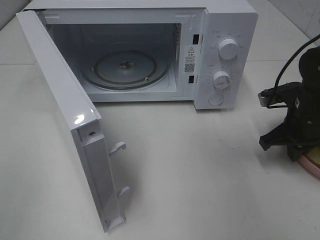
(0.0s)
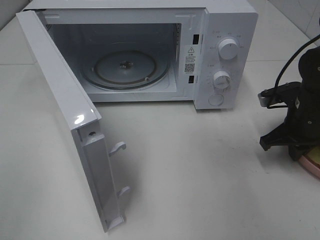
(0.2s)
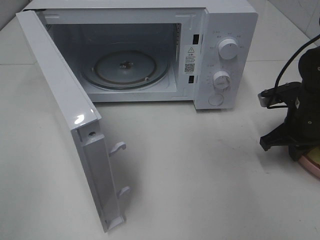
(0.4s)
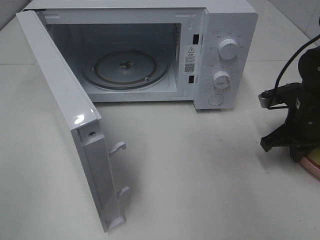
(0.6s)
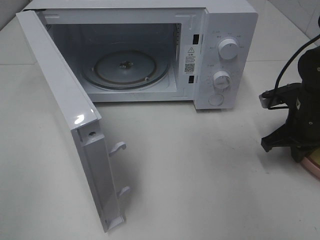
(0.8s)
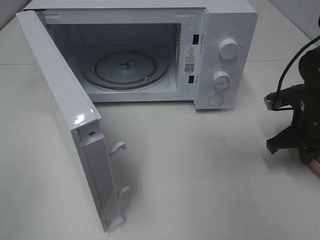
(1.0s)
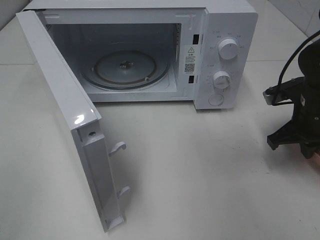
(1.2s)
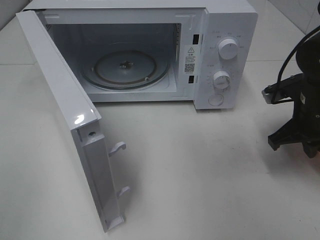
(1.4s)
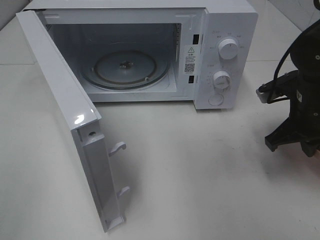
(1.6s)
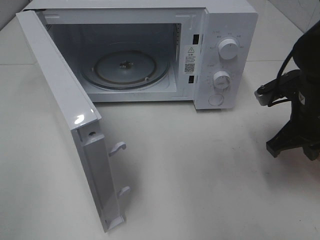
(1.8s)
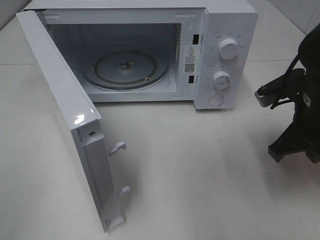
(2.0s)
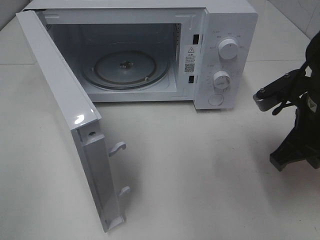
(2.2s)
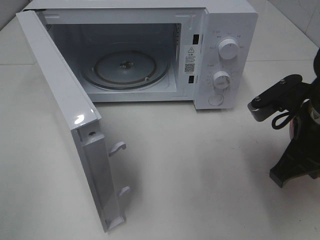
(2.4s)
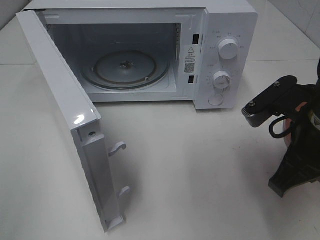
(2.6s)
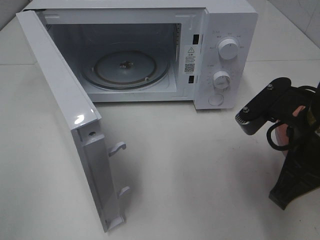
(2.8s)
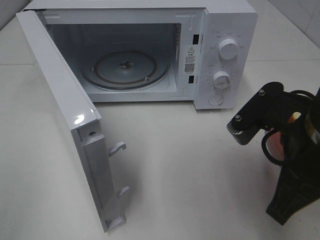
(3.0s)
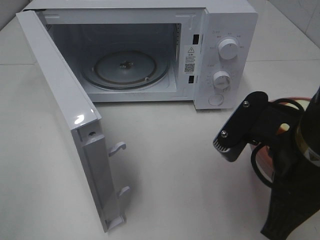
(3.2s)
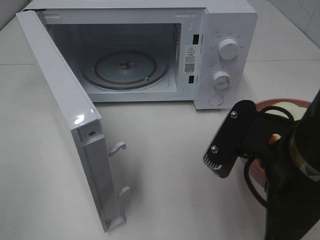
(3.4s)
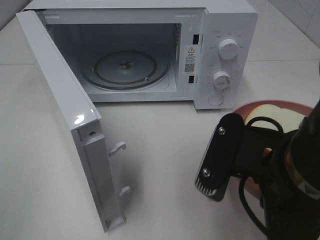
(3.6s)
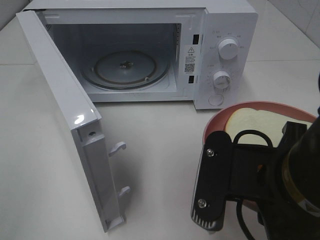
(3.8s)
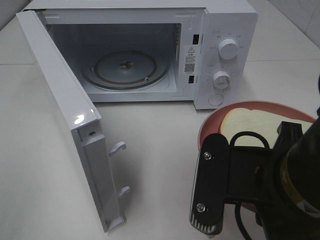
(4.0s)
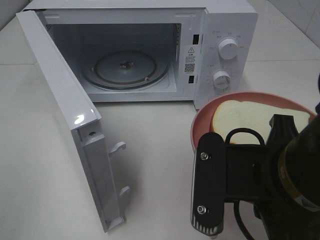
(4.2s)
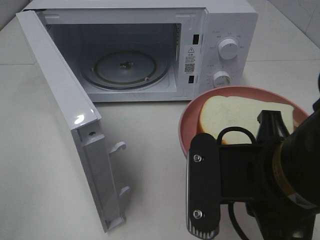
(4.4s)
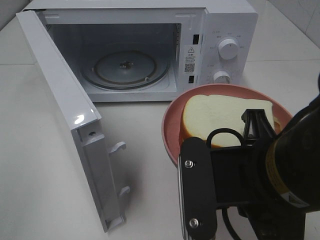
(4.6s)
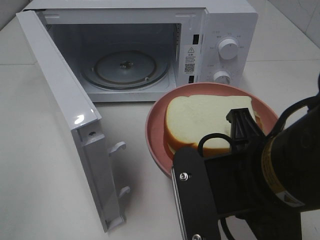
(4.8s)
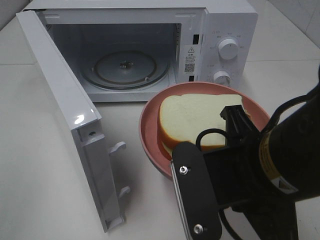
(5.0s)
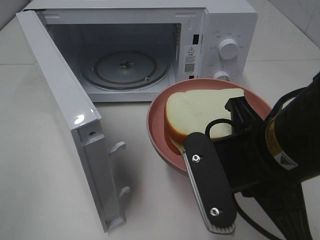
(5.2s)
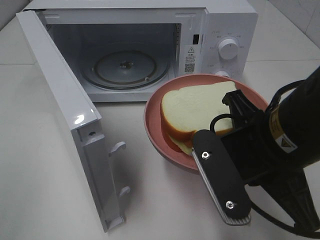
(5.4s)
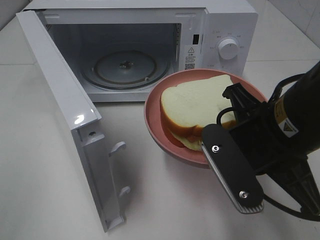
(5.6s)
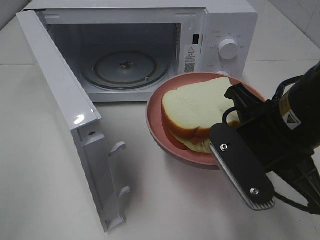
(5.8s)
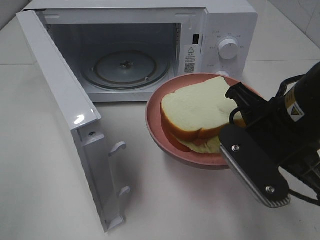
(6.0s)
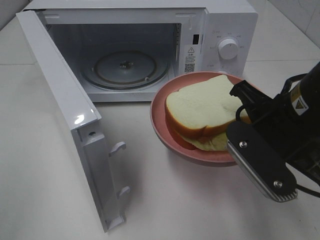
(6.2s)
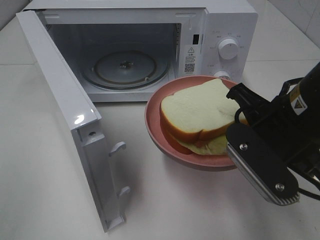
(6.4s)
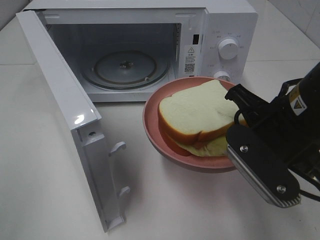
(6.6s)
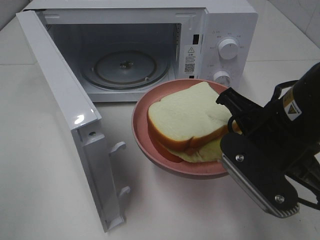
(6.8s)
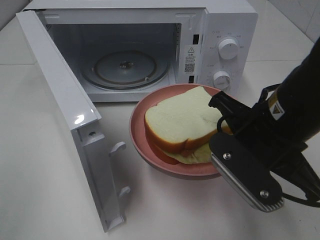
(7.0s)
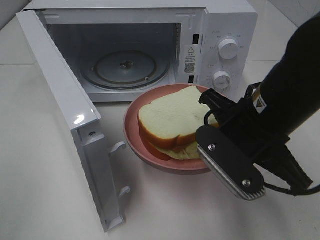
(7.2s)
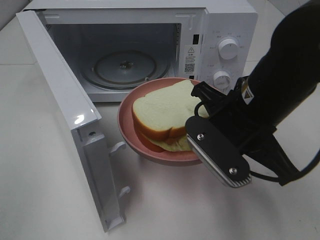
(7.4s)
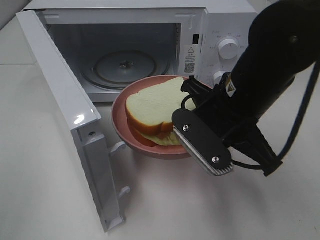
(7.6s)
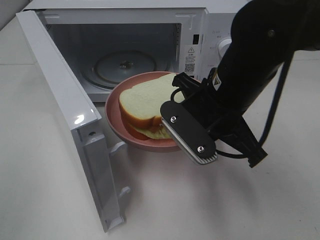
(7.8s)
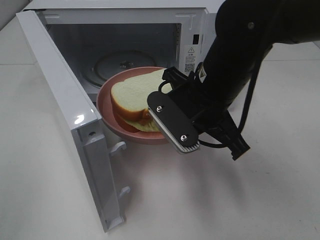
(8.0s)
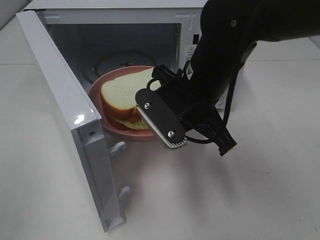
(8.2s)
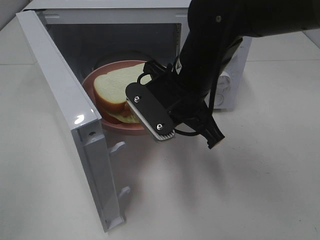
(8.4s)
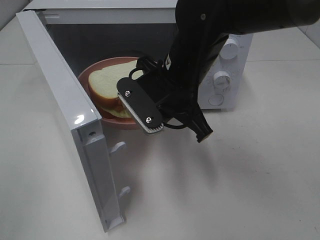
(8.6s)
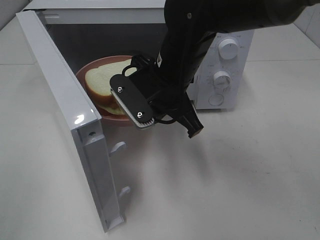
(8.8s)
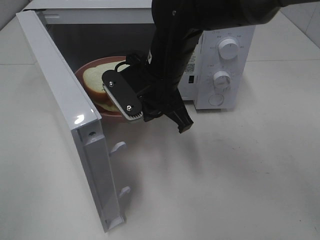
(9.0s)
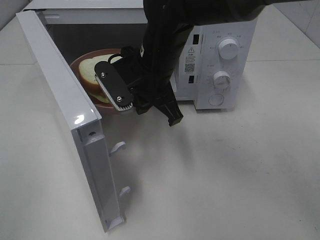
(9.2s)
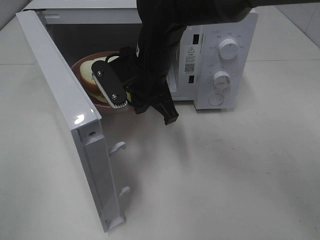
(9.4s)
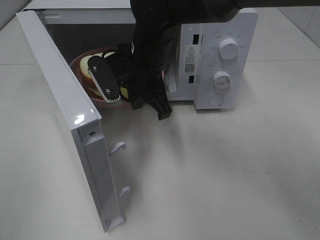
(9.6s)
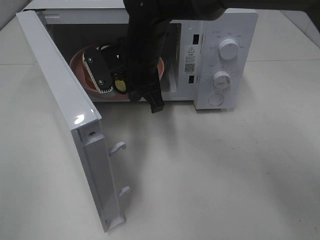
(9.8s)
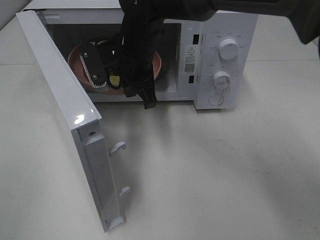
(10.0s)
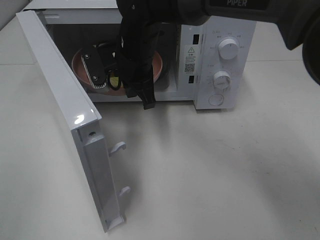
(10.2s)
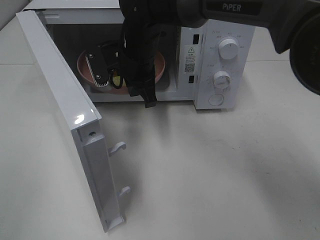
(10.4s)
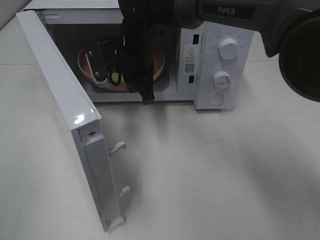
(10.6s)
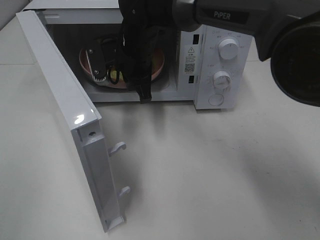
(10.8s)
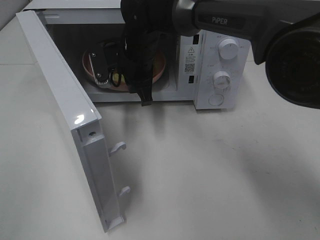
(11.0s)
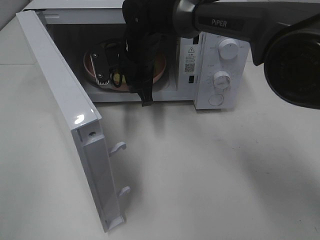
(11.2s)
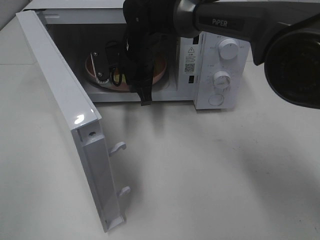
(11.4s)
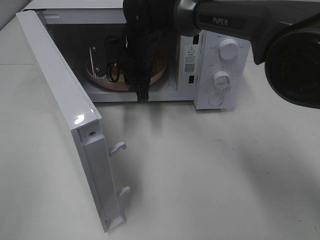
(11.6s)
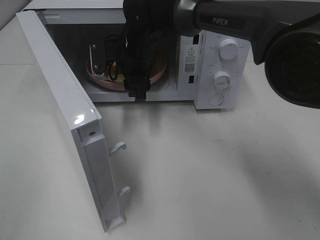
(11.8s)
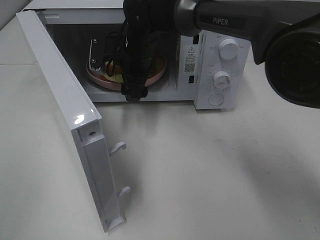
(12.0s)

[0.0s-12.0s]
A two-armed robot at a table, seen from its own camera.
Task of the whole recording: Heat Sandwich.
0.0s to 1.6s: The right gripper shifts by roughly 5 cm.
1.6s to 3.0s: The right gripper shifts some 15 cm backward, to the left and upward.
3.0s to 4.4s: The right gripper moves to the left, about 5 cm.
4.4s to 6.0s: The right gripper moves forward, roughly 10 cm.
6.0s to 7.6s: The right gripper changes place by some 5 cm.
7.6s to 9.0s: The right gripper shifts approximately 10 cm to the left and forward.
9.0s to 10.4s: The right gripper moves forward, about 10 cm.
10.4s to 12.0s: The right gripper opens up.

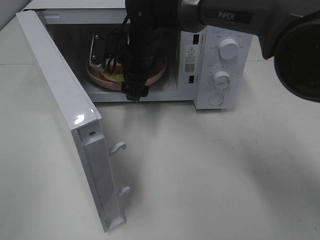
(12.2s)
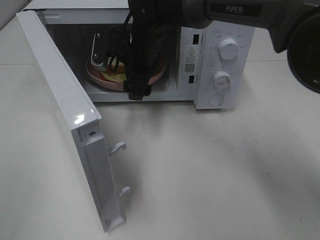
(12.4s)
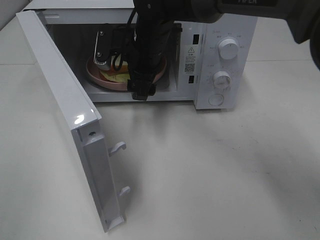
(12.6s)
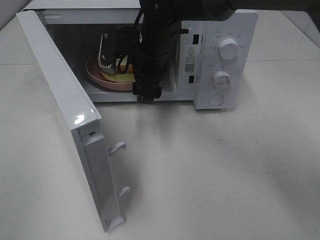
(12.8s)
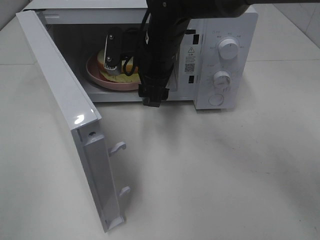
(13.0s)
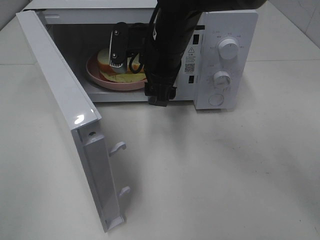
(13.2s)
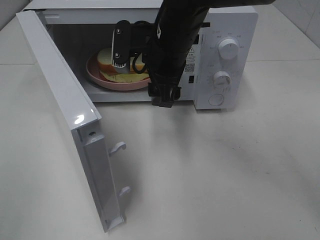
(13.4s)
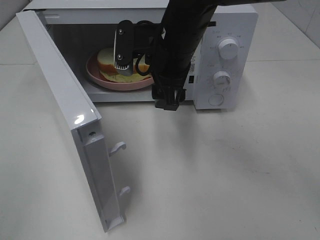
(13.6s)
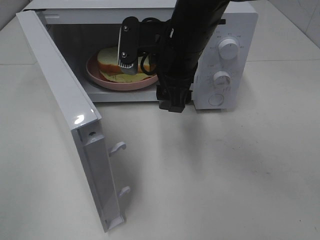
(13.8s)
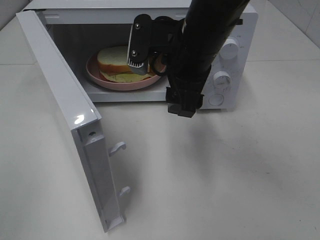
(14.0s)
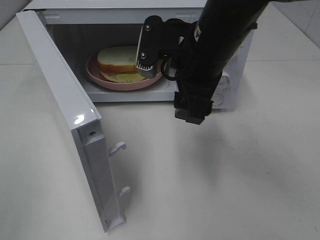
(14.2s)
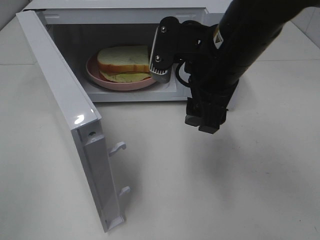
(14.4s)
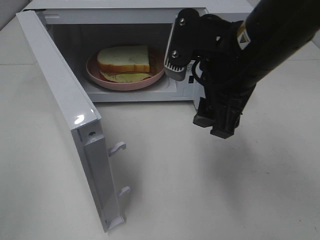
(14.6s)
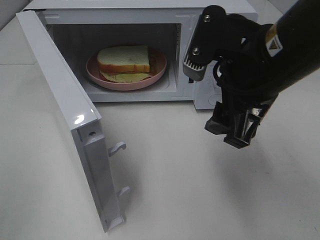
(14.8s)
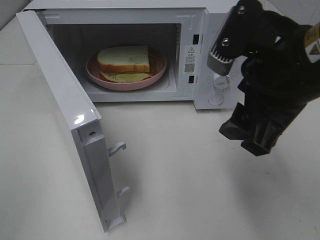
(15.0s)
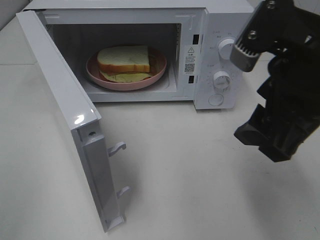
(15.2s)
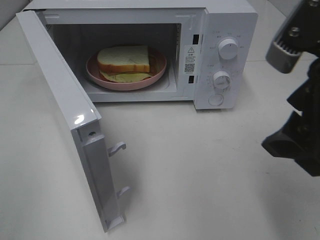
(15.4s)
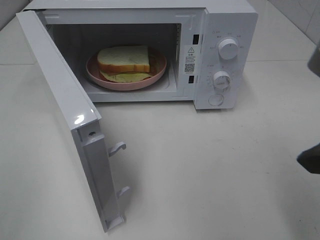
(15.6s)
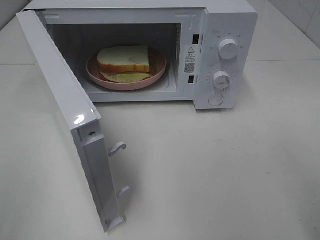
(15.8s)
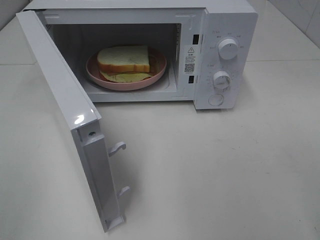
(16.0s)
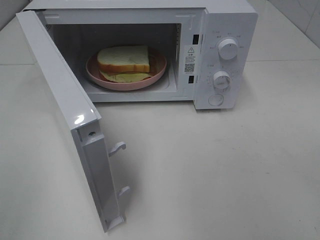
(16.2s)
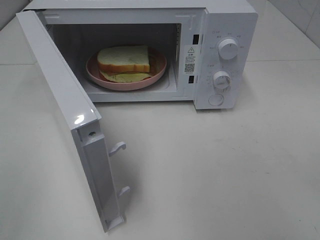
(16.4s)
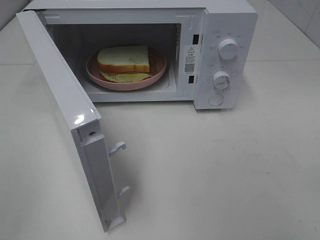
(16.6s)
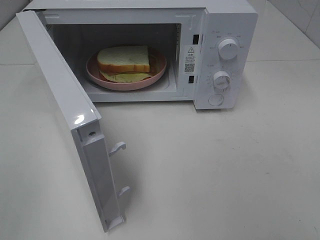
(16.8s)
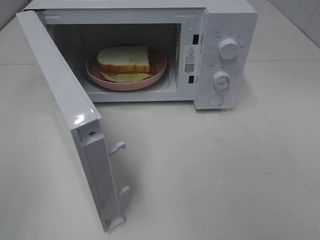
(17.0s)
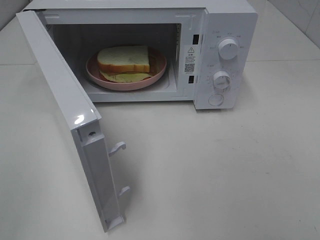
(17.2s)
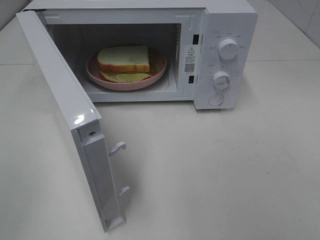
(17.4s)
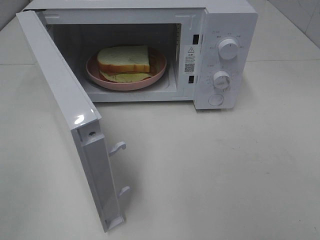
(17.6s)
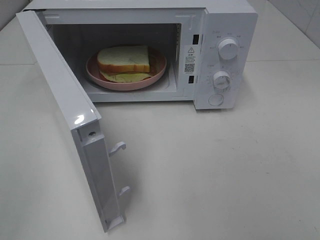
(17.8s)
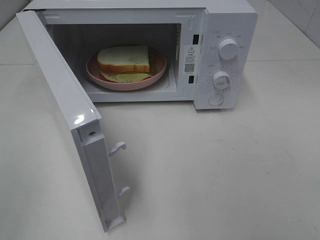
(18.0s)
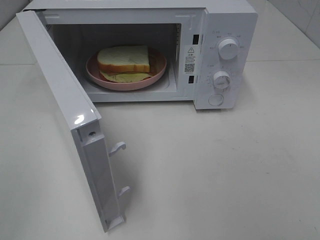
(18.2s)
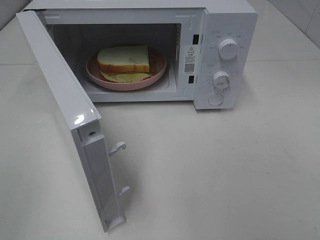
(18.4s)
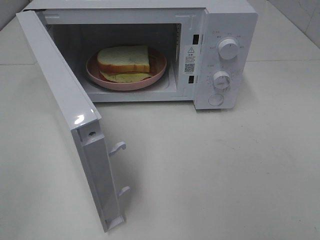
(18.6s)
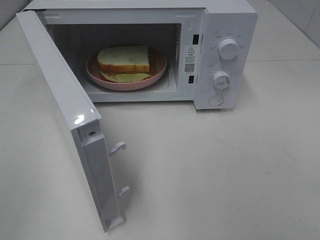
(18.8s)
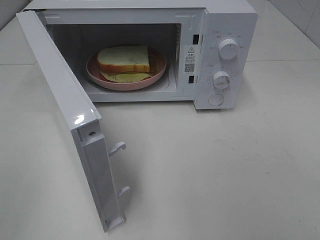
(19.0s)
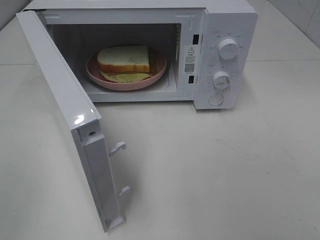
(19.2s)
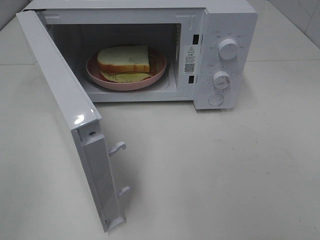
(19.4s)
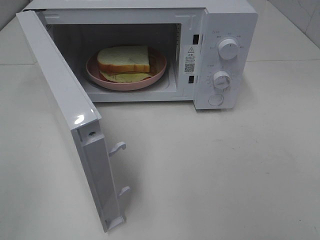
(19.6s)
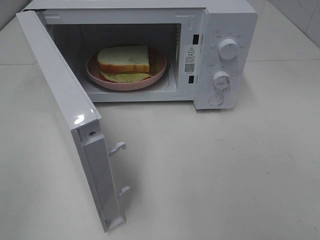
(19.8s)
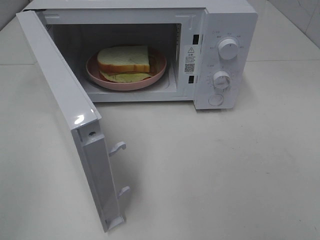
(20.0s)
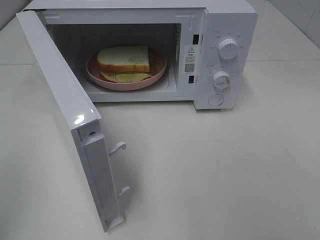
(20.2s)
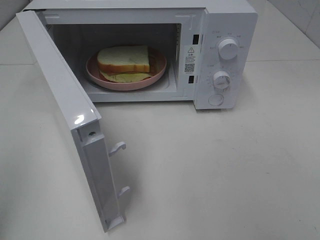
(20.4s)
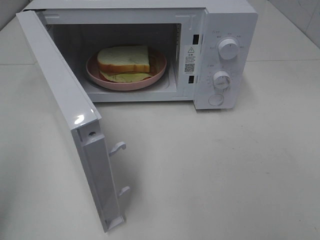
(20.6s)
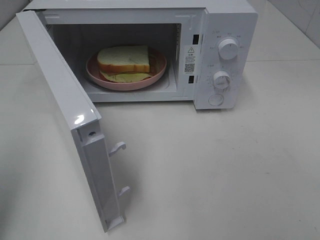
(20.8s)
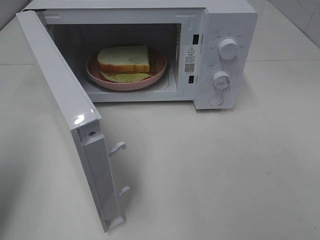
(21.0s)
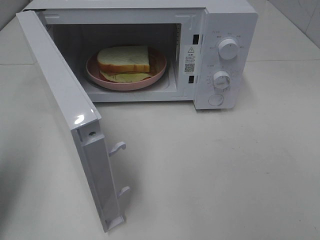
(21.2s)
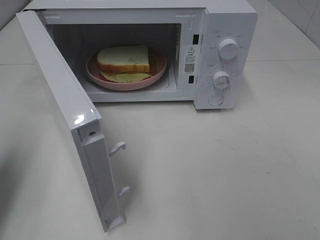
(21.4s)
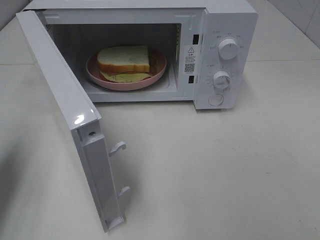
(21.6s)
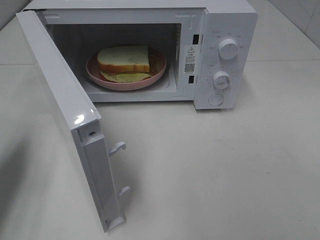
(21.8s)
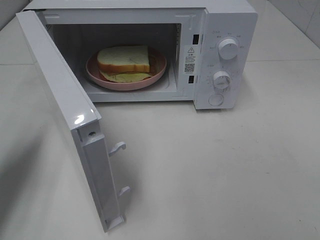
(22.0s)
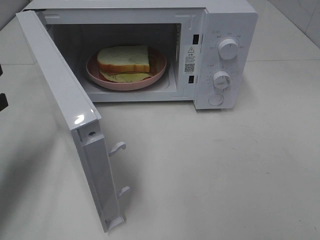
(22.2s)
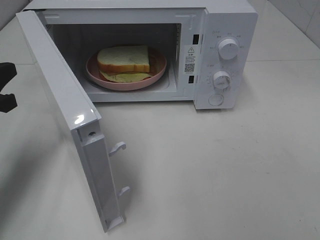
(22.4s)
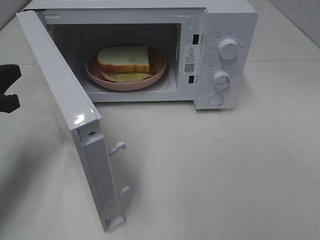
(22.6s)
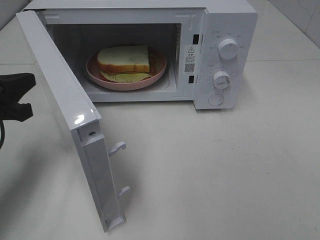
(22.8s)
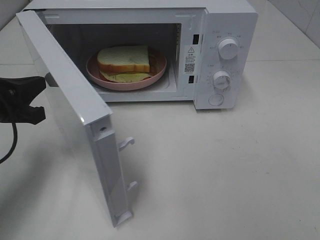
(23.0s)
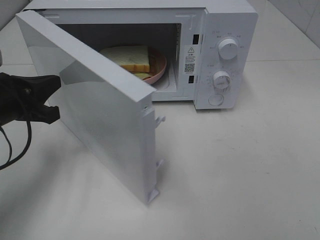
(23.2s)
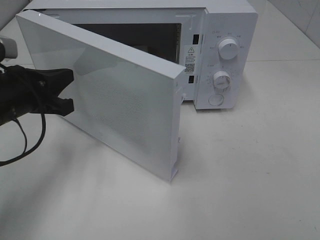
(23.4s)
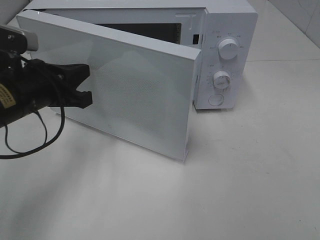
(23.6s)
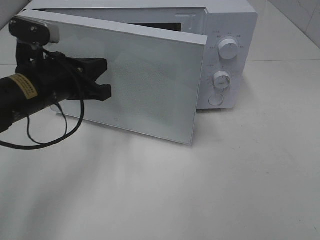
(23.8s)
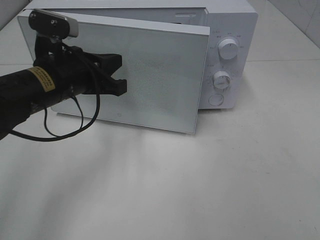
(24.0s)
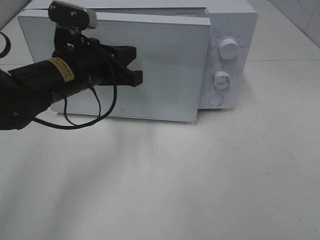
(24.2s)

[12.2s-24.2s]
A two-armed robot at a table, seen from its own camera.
Task of the whole recording: Heat Sandwich.
12.2s to 13.8s: The right gripper shifts some 15 cm backward, to the right and upward.
13.8s to 15.2s: The right gripper shifts some 20 cm backward and to the right.
15.2s to 16.6s: The right gripper heads backward and to the right, covering approximately 15 cm.
18.2s to 19.8s: Both grippers stay put.
19.8s to 21.2s: The left gripper is displaced forward by approximately 15 cm, and closes.
21.2s to 22.6s: The left gripper shifts some 10 cm forward and downward.
22.6s to 24.2s: The left gripper is displaced to the right by roughly 15 cm.
